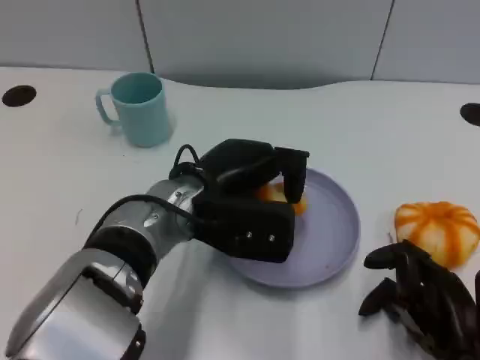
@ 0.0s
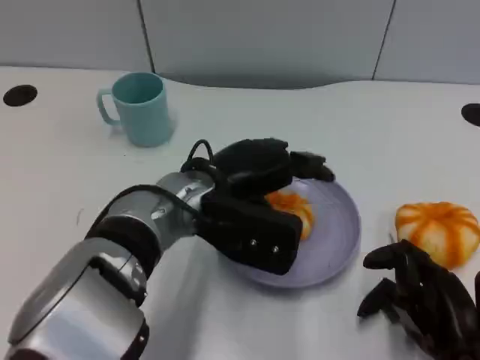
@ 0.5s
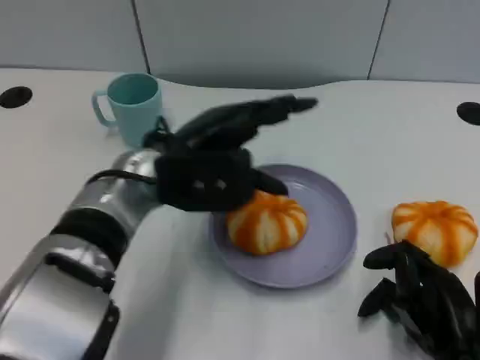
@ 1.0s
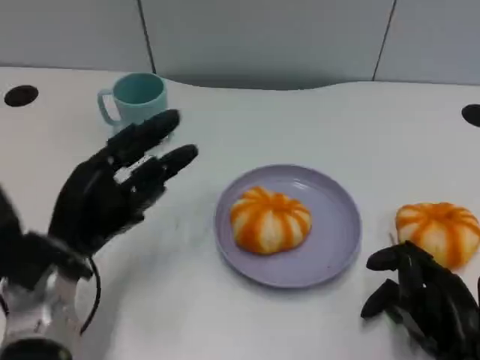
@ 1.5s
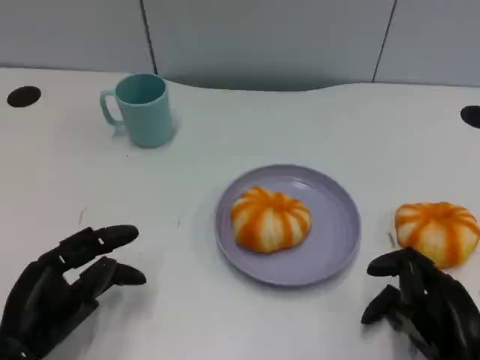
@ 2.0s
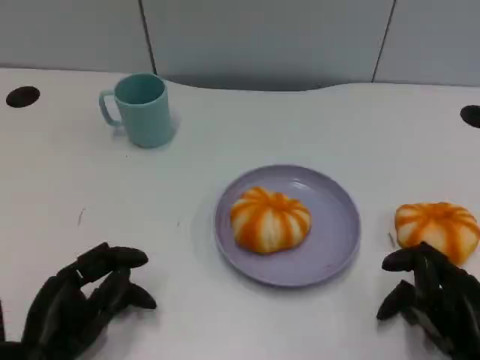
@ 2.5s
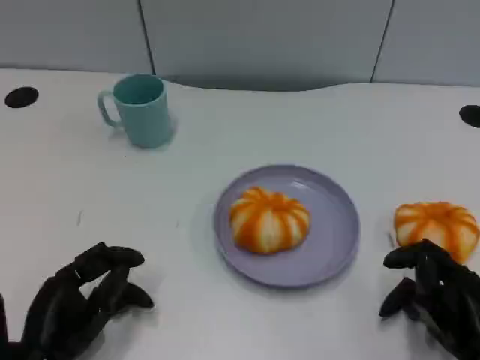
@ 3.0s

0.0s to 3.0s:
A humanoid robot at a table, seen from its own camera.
Task of the whole recording: Grasp the bread from the table and place it into the plate.
0.0s to 1.5s: The left hand heads to the left, covering some 15 cm.
1.5s to 3.0s: The left hand is displaced backward and downward by approximately 10 cm.

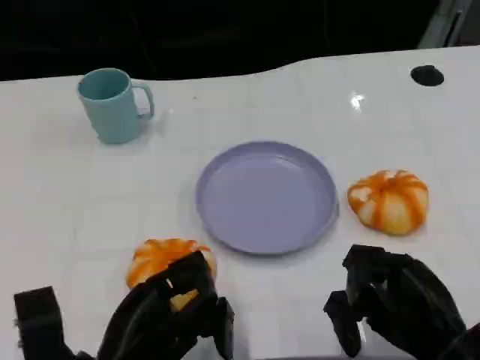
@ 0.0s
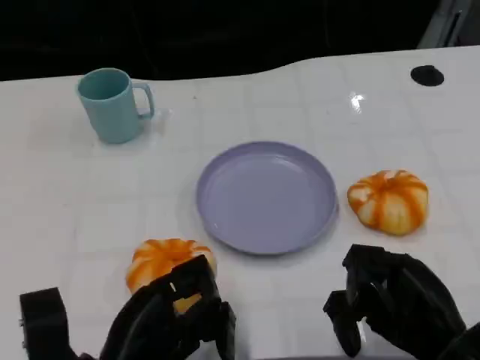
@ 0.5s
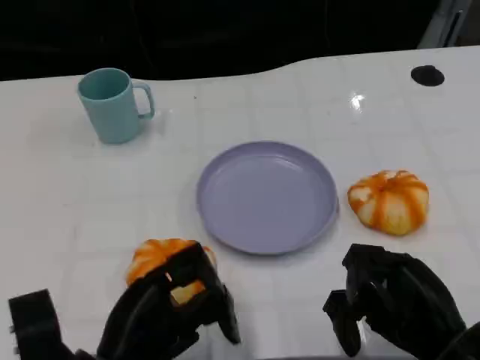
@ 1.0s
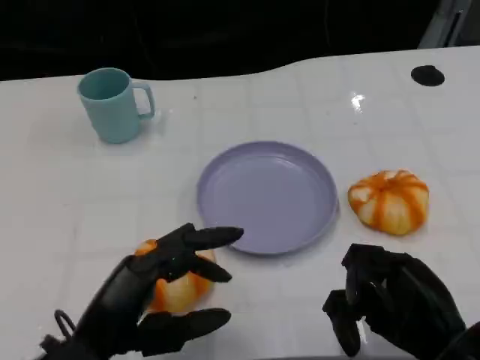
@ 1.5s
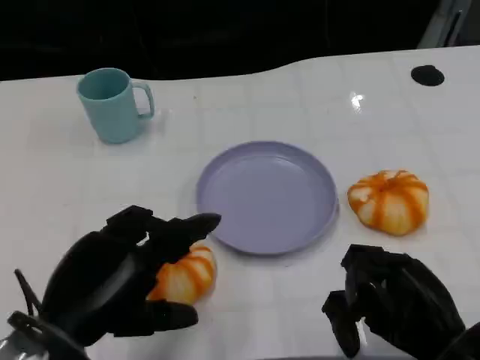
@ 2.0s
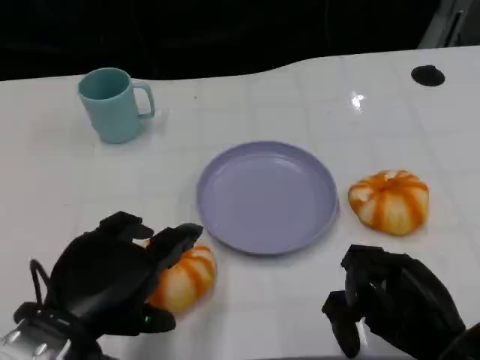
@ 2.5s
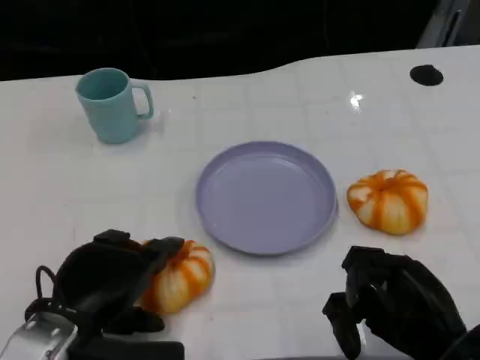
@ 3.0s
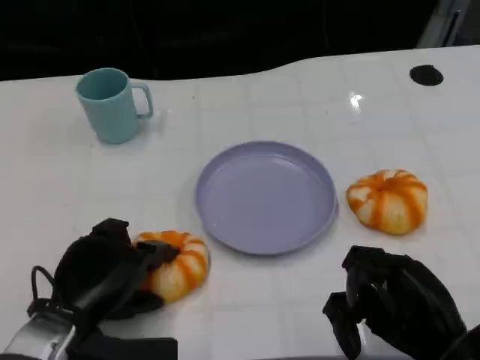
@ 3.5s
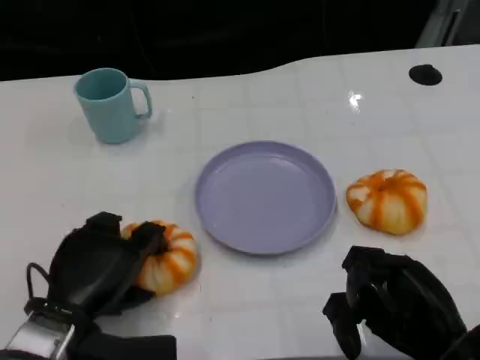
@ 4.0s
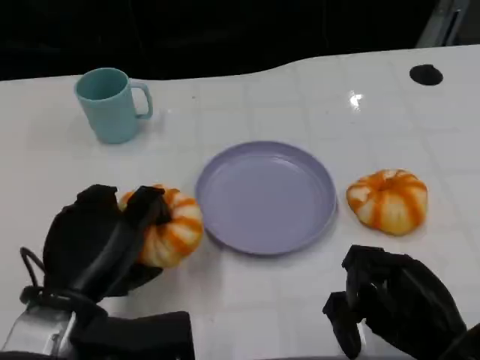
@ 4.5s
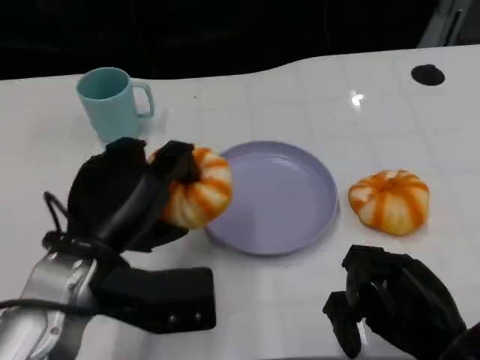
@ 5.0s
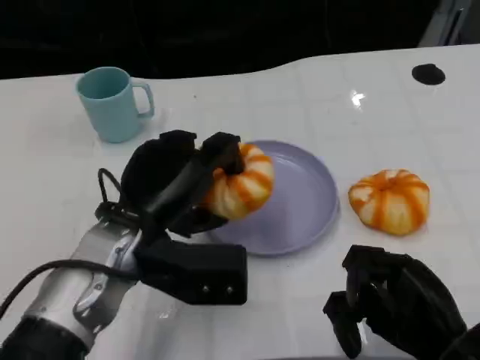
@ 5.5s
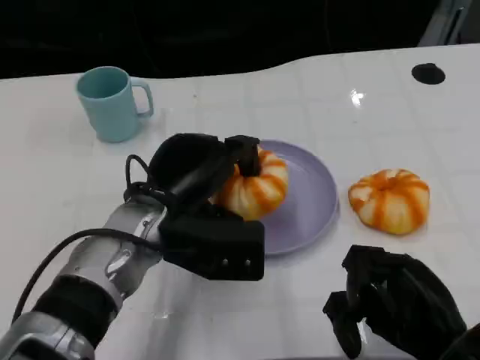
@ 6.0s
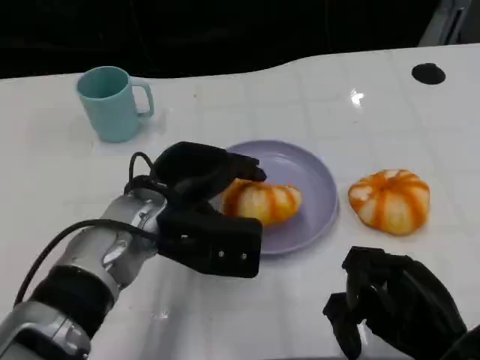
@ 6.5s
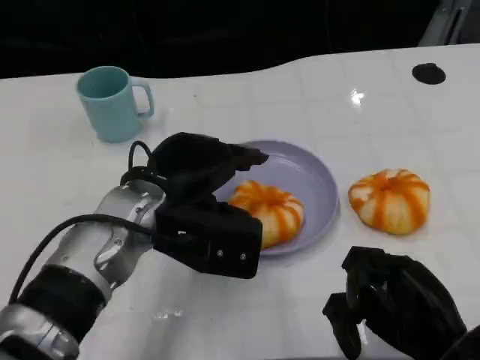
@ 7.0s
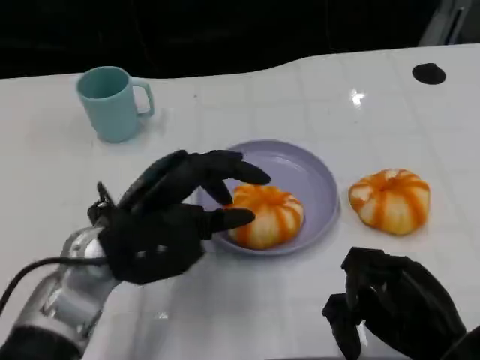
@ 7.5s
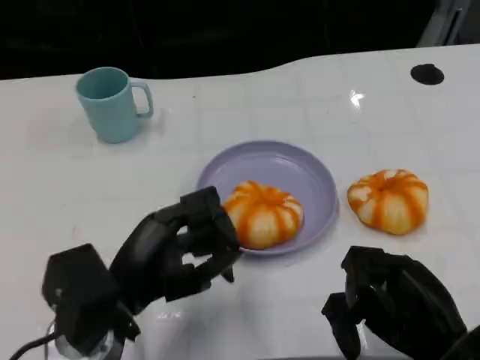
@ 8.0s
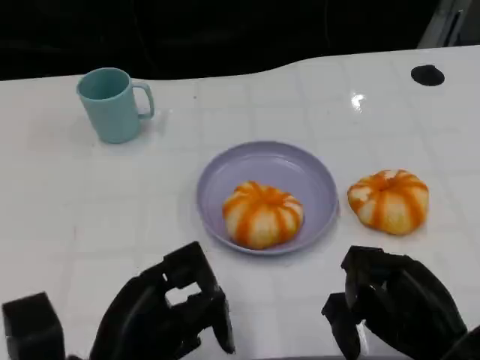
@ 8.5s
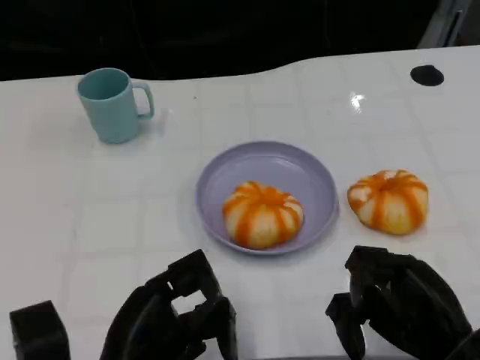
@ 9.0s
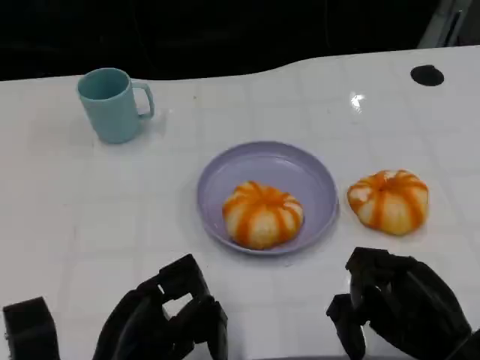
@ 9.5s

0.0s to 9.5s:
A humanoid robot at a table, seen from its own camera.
Task of the whole recording: Grasp the bread from the table and place it into the plate.
0.0s to 2.0s: The left hand travels upward by about 5 cm.
2.0s to 4.0s: The left hand shifts about 5 cm downward.
4.0s to 5.5s: The left hand moves upward, to the right and forward, some 10 cm.
7.5s to 9.5s: The left hand moves backward and downward, roughly 15 cm.
